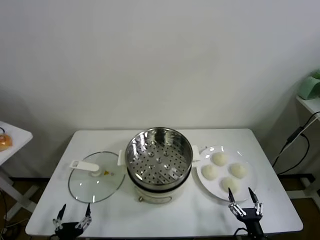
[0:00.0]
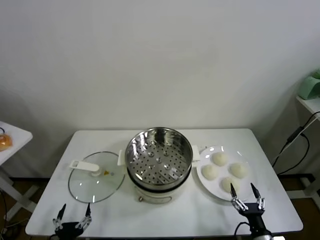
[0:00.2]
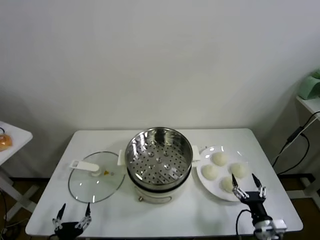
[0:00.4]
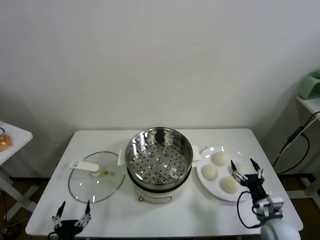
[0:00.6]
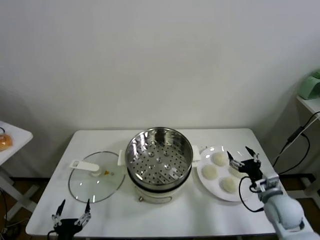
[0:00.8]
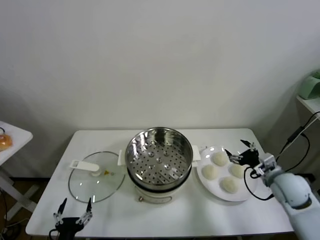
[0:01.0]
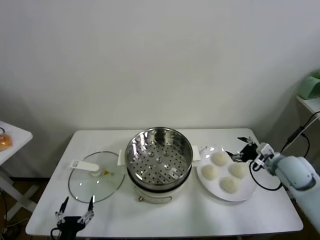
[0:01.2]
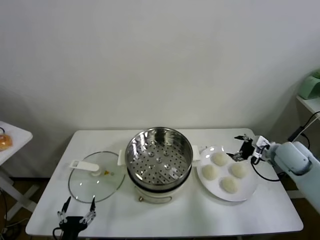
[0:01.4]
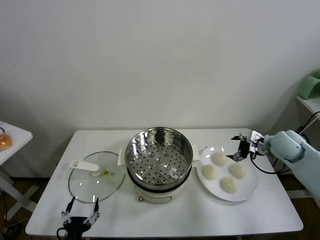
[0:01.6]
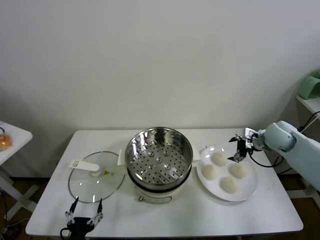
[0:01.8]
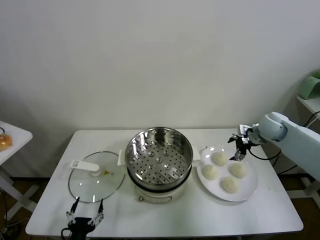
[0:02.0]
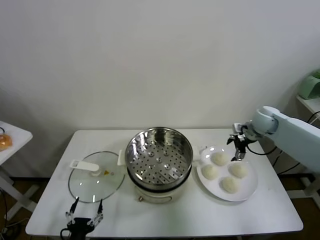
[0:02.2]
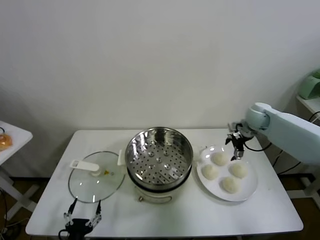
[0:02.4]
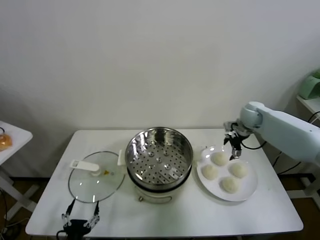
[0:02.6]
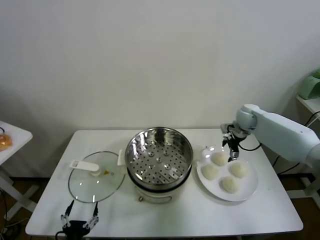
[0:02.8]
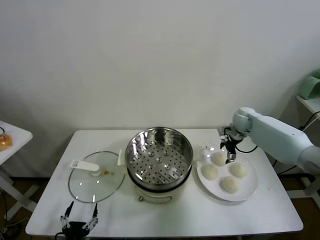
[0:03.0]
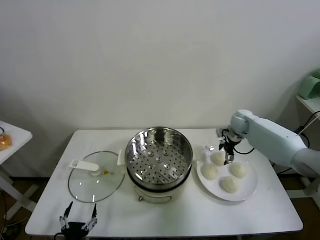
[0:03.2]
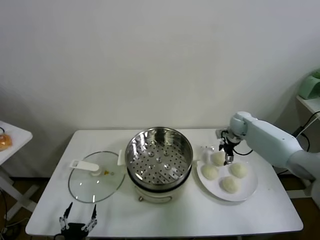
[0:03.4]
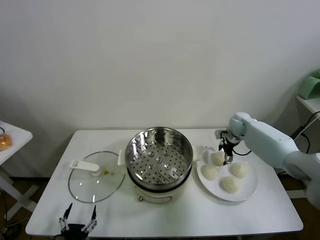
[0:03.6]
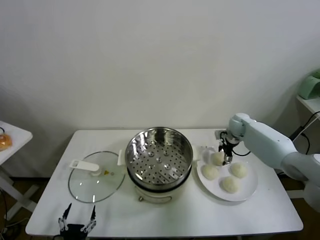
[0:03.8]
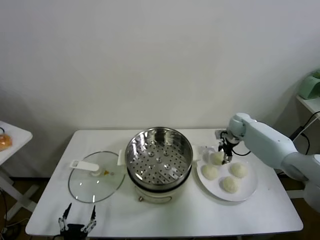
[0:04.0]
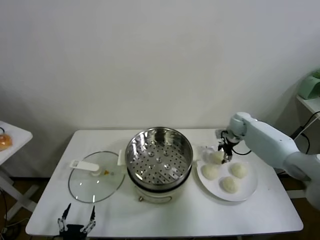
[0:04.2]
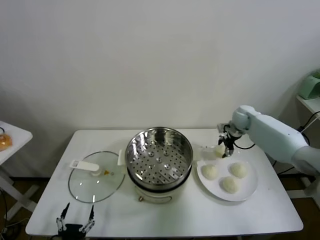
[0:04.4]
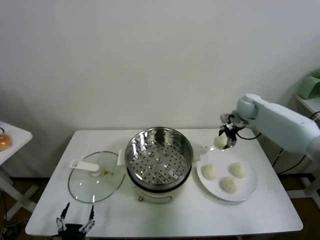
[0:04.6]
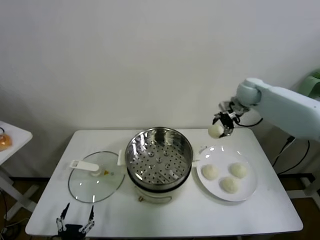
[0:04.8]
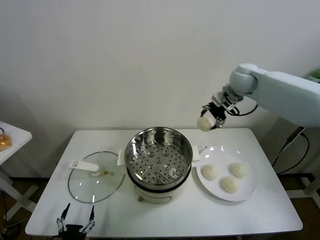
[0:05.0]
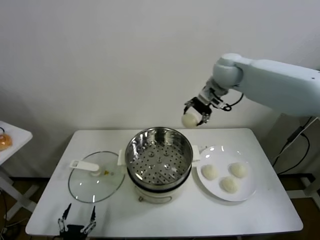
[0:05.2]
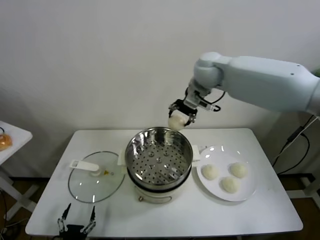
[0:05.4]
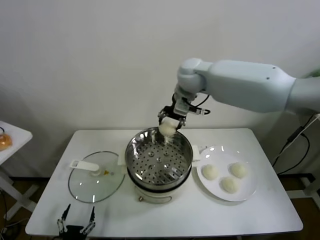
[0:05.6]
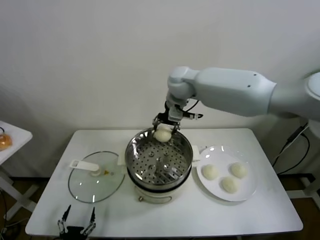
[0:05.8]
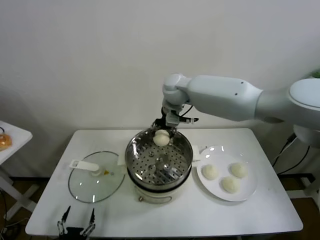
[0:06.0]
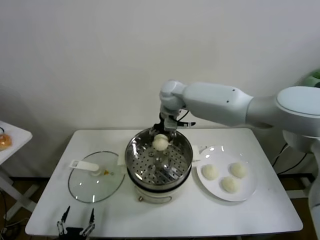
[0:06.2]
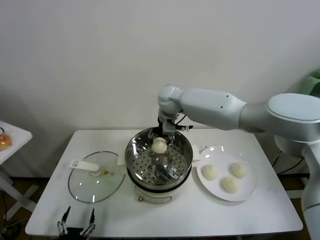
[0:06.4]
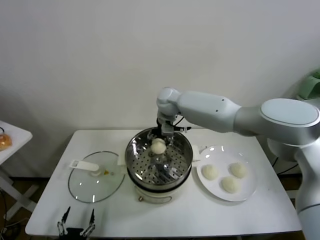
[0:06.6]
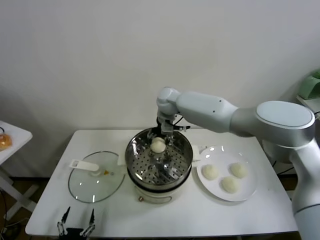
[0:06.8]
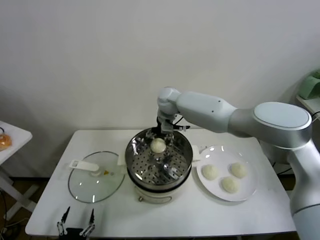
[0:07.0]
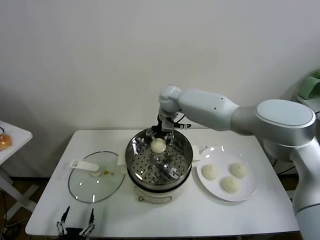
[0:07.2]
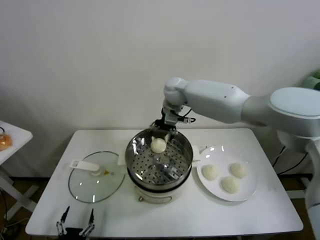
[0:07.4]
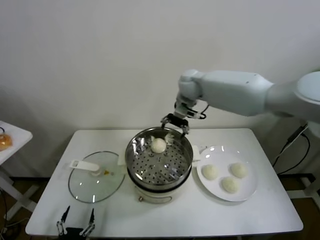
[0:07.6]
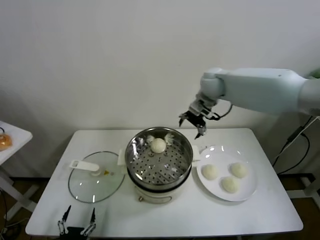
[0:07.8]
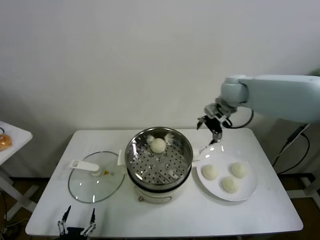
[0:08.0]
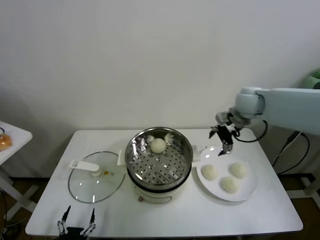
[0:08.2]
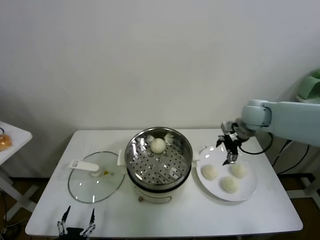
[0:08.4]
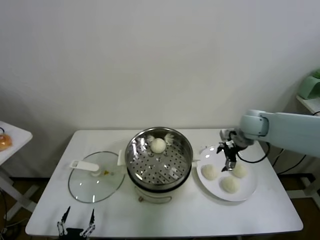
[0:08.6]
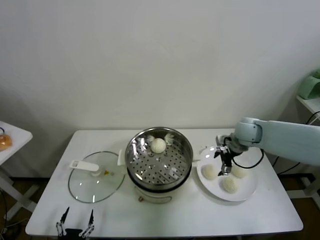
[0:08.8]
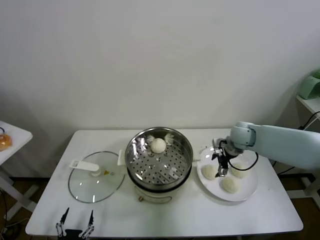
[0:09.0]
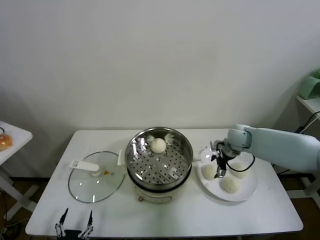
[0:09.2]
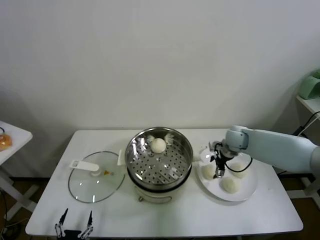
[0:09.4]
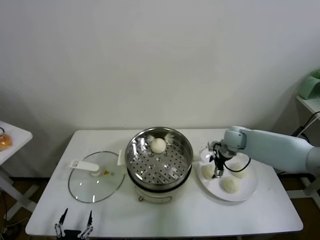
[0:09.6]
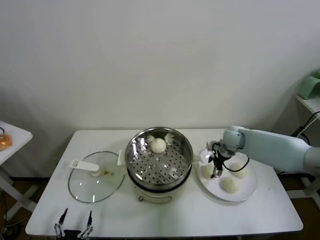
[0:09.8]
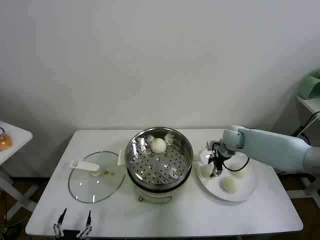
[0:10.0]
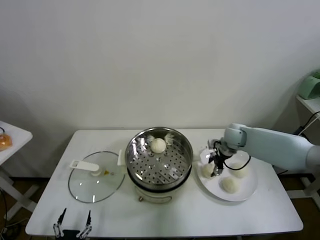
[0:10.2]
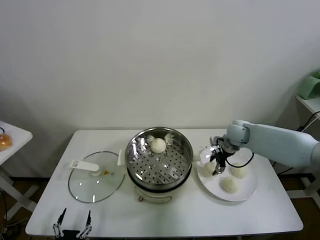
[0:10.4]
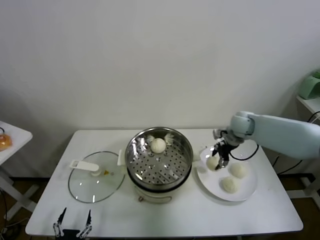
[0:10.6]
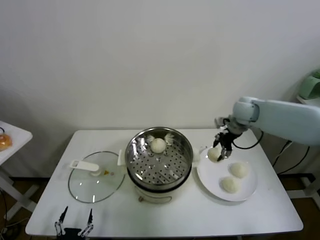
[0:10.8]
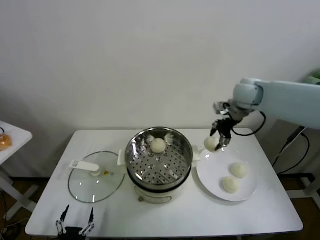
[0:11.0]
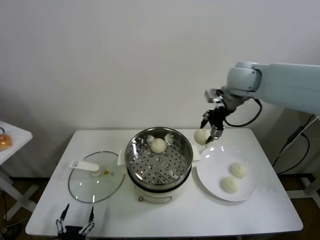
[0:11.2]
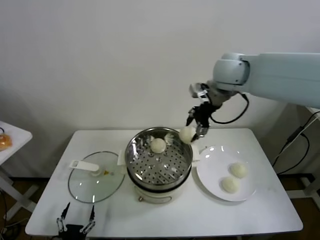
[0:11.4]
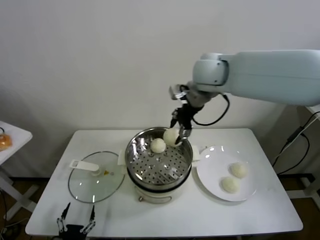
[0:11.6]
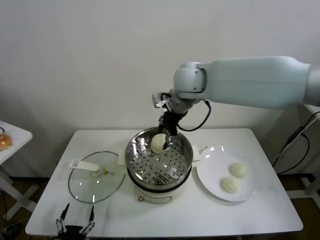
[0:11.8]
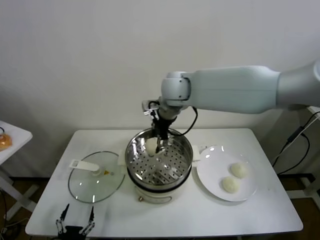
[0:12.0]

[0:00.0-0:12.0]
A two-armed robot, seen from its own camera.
Task of the whole recording: take steamed baozi put them in steamer.
Step, 0:00.0 to 0:03.8: Grasp the baozi in the plate with right gripper.
Step, 0:04.0 to 0:07.2: Place the baozi on the steamer with right gripper.
Step, 0:07.4 to 0:09.8: Grasp the baozi in the plate with right gripper.
0:01.6 to 0:03.0: The right gripper moves forward and to the left, approximately 15 cm.
0:03.0 to 0:04.4: The right gripper closes.
0:04.4 to 0:06.0: The right gripper heads to the left and upward, covering some 30 cm.
0:06.0 to 0:07.6: The right gripper heads to the right, covering about 10 cm, and opens its fingers.
0:07.6 to 0:09.0: The right gripper moves downward, to the right and backward, some 25 cm.
0:09.0 to 0:10.4: The right gripper closes.
0:10.4 to 0:12.0: The right gripper goes some 35 cm to the left and upward.

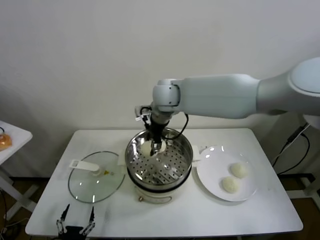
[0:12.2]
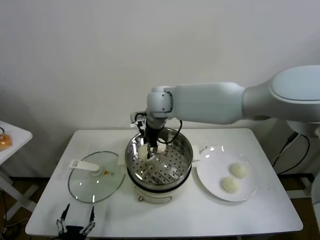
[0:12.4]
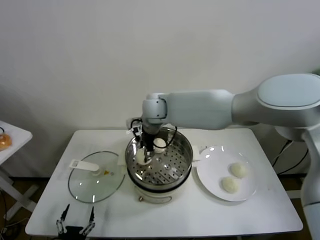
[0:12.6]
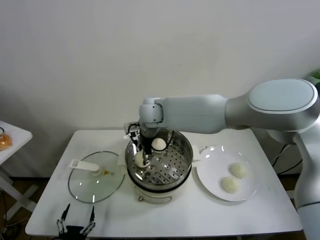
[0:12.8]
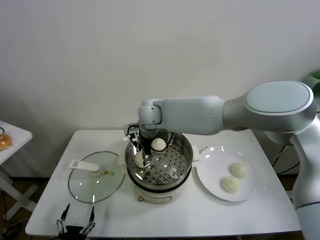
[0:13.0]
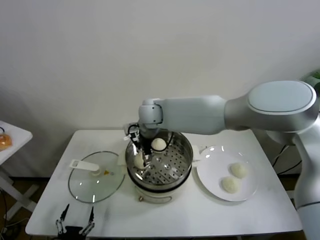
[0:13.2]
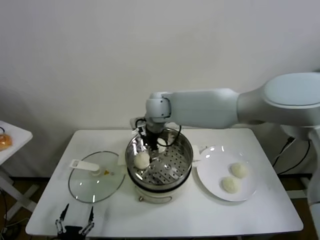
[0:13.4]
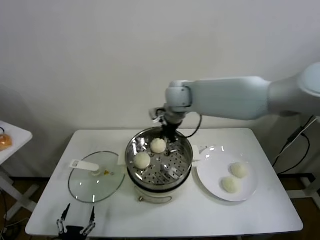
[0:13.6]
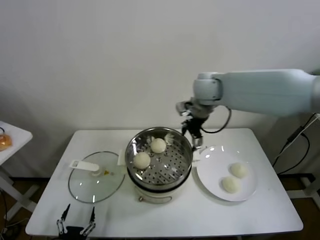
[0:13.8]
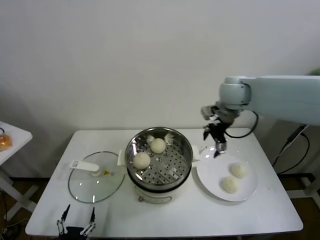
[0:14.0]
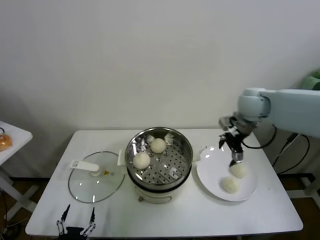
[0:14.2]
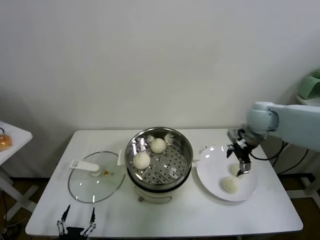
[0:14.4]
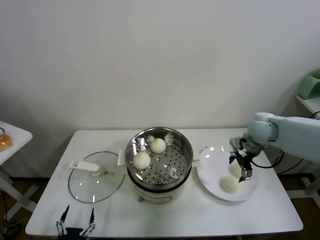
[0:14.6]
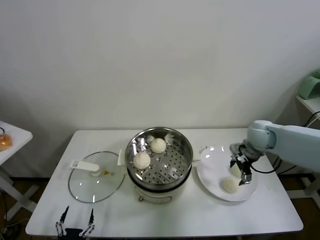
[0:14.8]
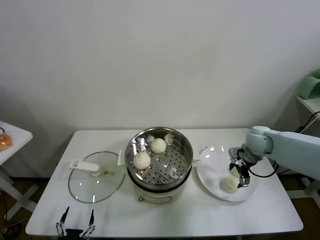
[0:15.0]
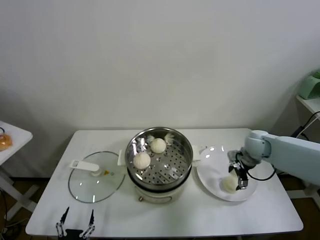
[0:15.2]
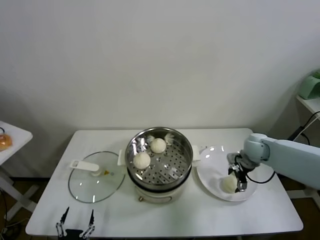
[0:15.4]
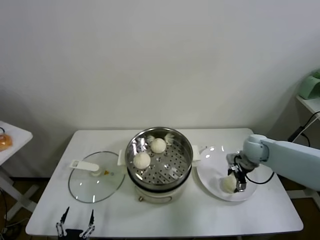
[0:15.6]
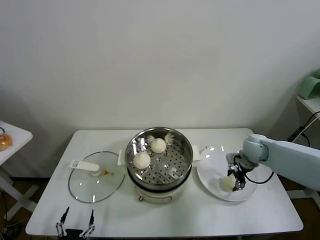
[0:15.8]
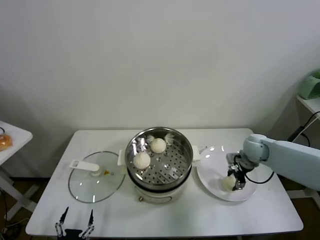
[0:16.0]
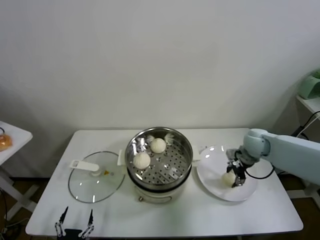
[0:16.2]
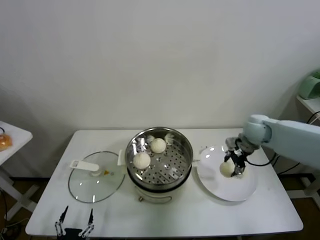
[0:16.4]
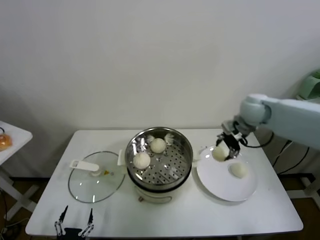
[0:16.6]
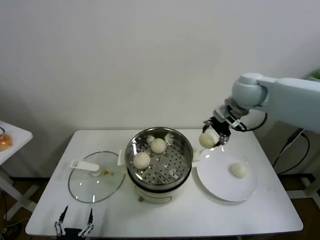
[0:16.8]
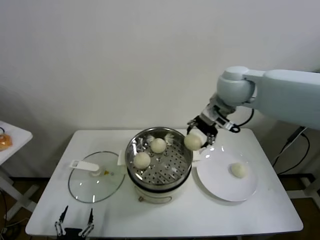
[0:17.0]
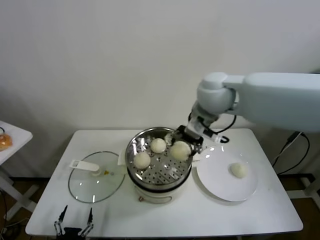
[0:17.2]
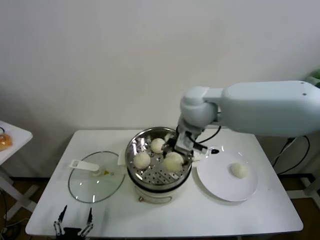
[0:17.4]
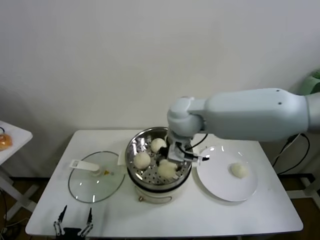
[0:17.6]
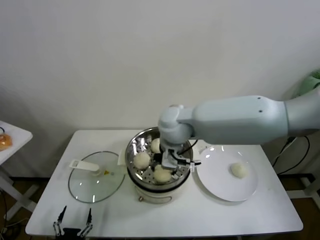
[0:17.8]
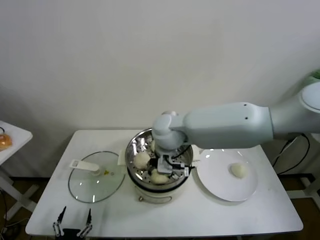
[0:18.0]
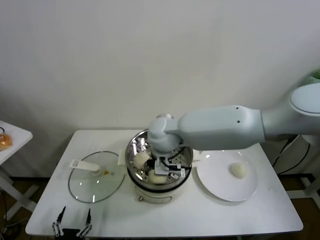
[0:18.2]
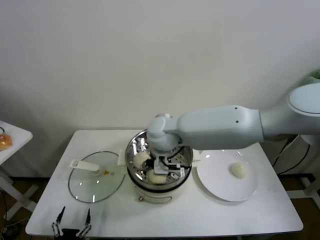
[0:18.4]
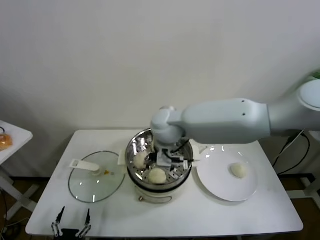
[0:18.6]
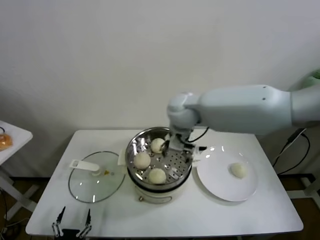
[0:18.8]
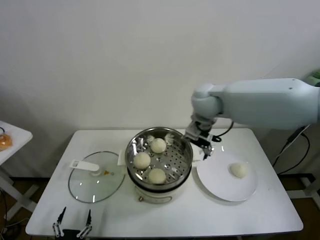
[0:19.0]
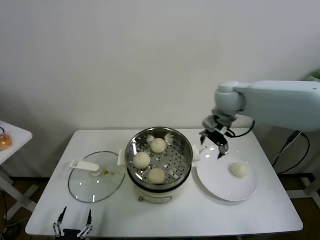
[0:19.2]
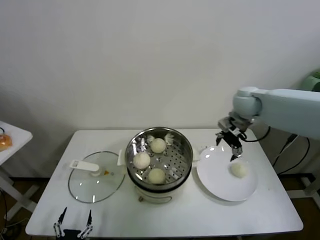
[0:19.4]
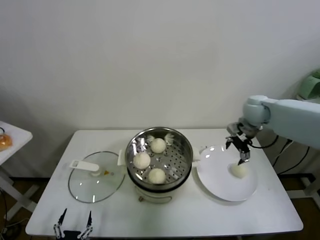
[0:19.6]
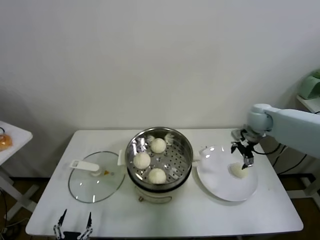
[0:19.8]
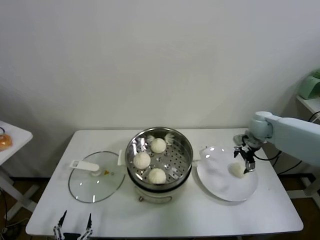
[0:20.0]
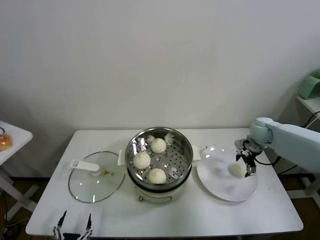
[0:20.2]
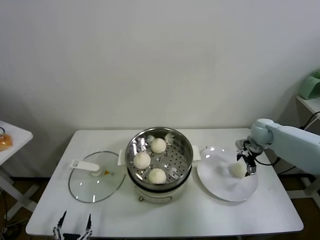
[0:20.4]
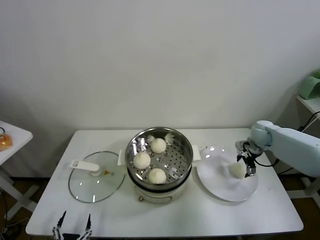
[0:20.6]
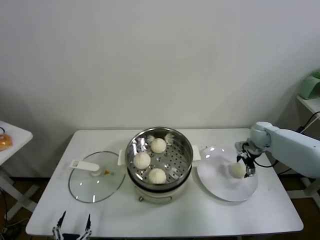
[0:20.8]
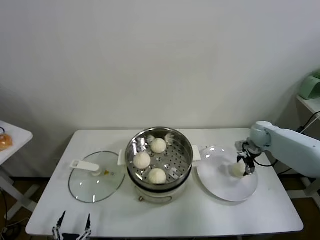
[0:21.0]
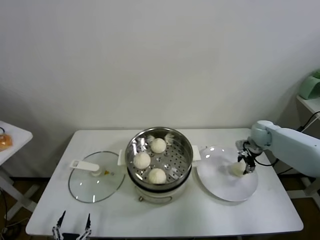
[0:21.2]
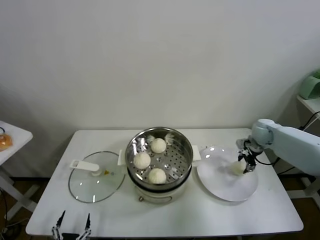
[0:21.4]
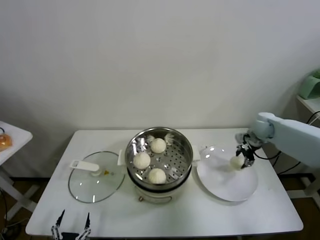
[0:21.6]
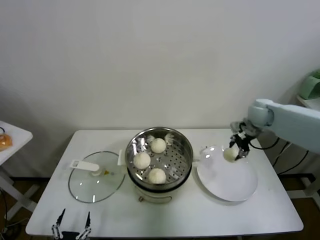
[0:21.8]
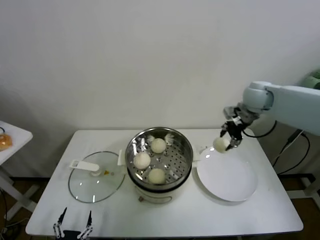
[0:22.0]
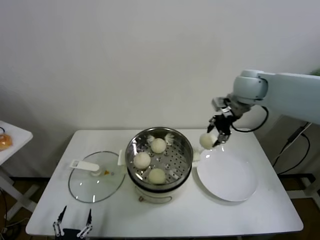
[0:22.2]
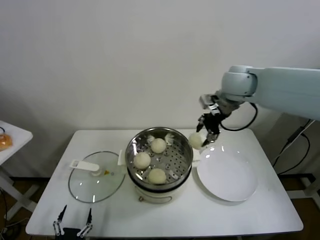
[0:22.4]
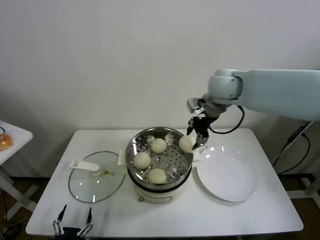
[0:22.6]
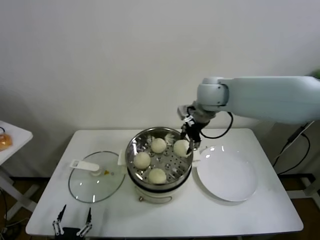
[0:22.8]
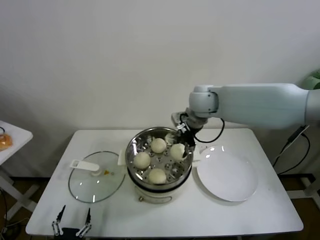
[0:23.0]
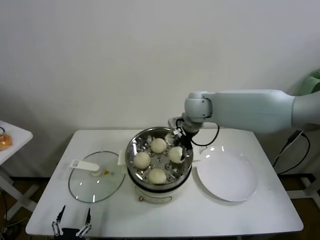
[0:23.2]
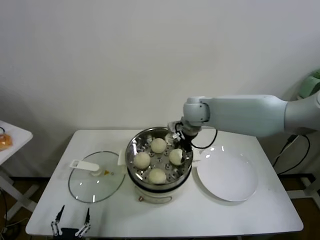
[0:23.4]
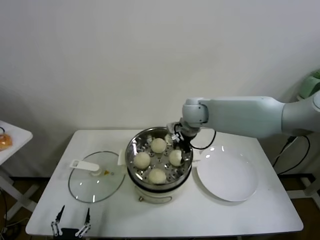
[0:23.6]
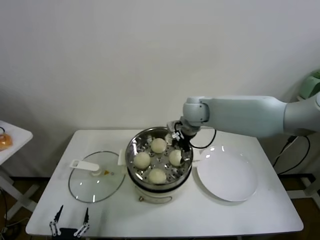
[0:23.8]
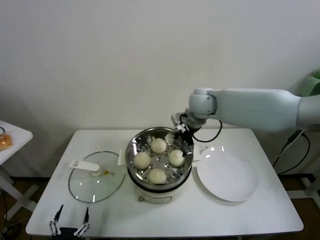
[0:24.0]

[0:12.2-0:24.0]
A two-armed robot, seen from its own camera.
Task of the whole recording: take steamed baozi put them in steamer.
Step, 0:13.6 to 0:15.8: Grasp the baozi in the plate with right gripper.
Step, 0:16.0 to 0:18.2: Place the baozi on the steamer with right gripper.
Step, 0:18.4 to 0:21.0: Grasp the baozi in the plate with right gripper.
Step, 0:21.2 to 0:23.6: Place the baozi on the steamer with right gripper.
0:12.2 to 0:13.6: The right gripper heads to the right, covering roughly 5 cm, and opens.
0:13.6 to 0:15.2: The right gripper is displaced to the right and downward by some 35 cm.
0:15.2 to 0:16.6: The right gripper is displaced upward by approximately 15 cm, and closes up.
0:16.6 to 0:18.2: The right gripper is displaced to the left by some 30 cm, and opens up.
0:18.2 to 0:19.6: The right gripper moves to the right, approximately 30 cm.
0:19.6 to 0:21.0: The right gripper goes roughly 15 cm downward and to the right.
0:21.0 to 0:22.6: The right gripper is displaced upward and to the left by approximately 35 cm, and closes up.
0:22.6 to 0:24.0: The right gripper goes about 10 cm downward, and opens its fingers.
